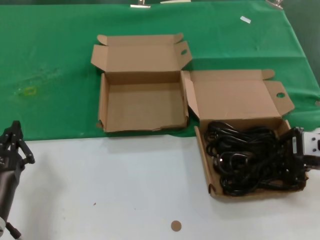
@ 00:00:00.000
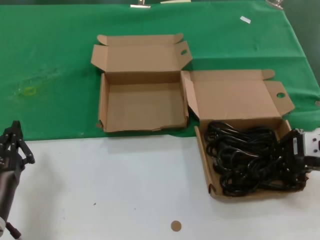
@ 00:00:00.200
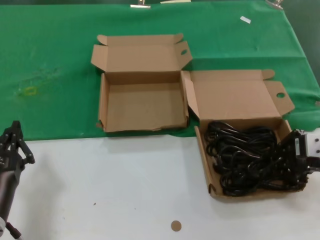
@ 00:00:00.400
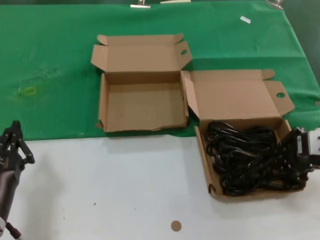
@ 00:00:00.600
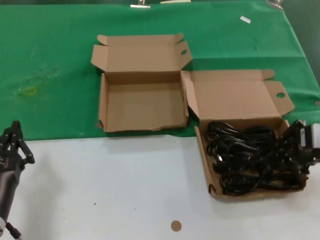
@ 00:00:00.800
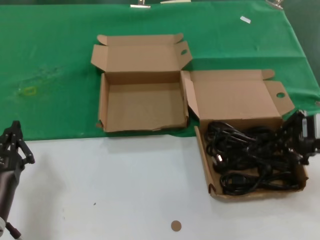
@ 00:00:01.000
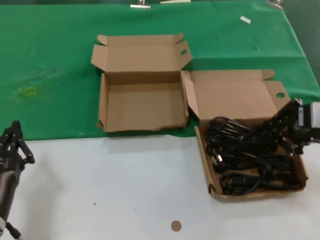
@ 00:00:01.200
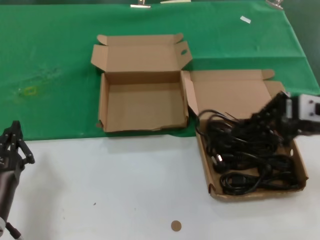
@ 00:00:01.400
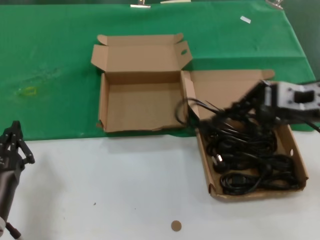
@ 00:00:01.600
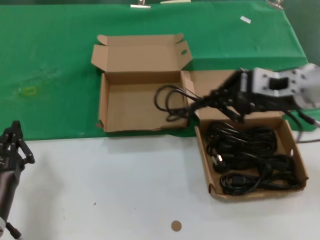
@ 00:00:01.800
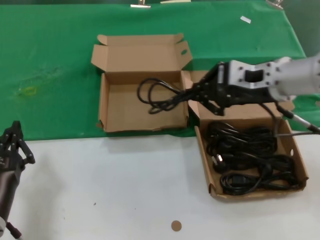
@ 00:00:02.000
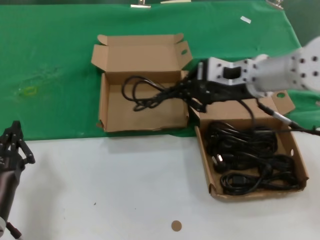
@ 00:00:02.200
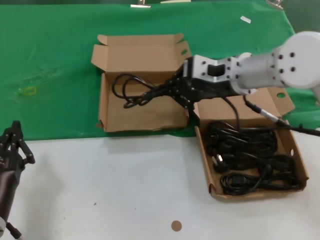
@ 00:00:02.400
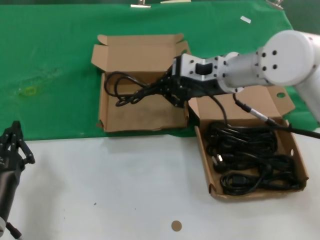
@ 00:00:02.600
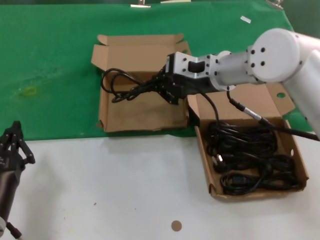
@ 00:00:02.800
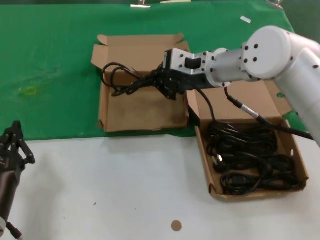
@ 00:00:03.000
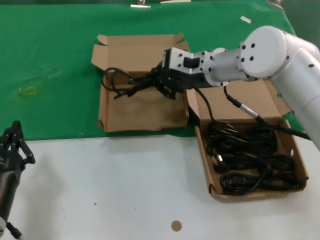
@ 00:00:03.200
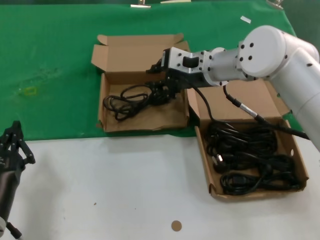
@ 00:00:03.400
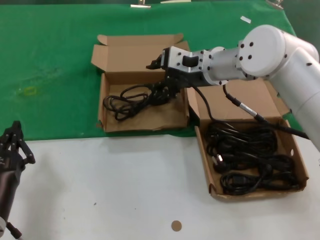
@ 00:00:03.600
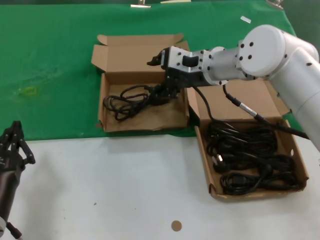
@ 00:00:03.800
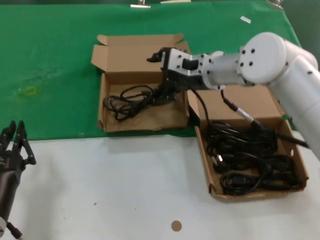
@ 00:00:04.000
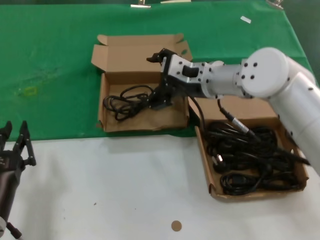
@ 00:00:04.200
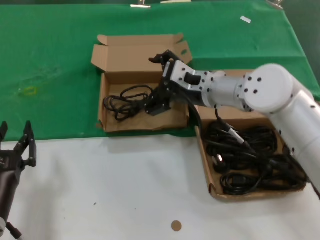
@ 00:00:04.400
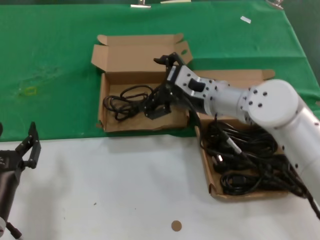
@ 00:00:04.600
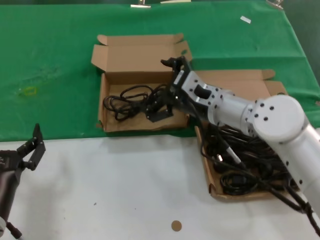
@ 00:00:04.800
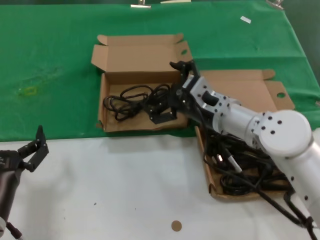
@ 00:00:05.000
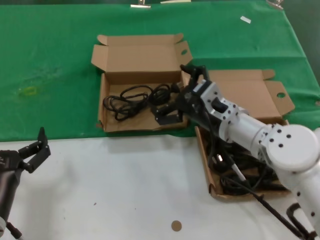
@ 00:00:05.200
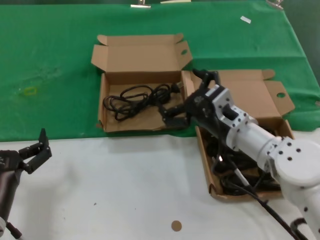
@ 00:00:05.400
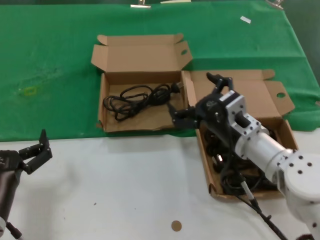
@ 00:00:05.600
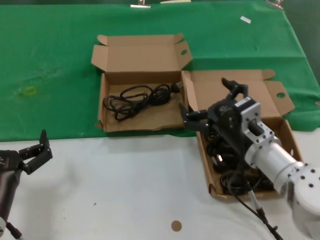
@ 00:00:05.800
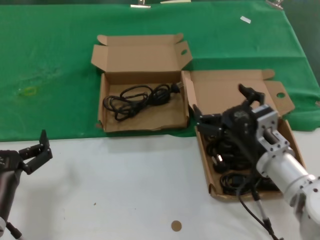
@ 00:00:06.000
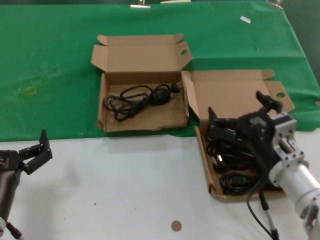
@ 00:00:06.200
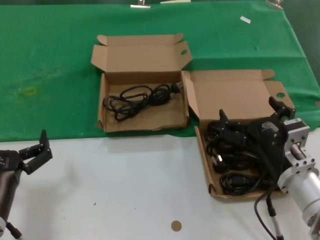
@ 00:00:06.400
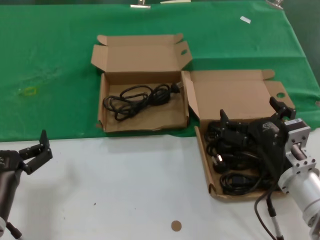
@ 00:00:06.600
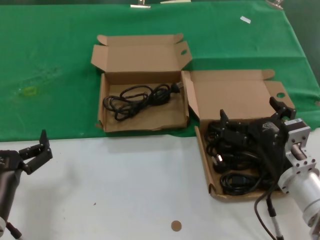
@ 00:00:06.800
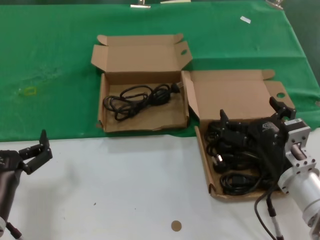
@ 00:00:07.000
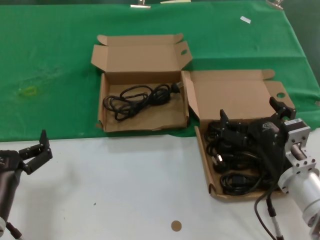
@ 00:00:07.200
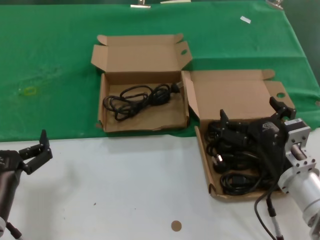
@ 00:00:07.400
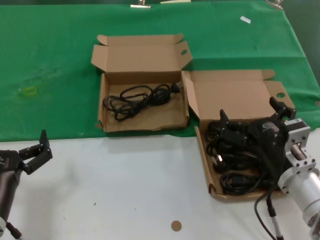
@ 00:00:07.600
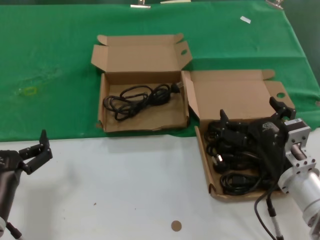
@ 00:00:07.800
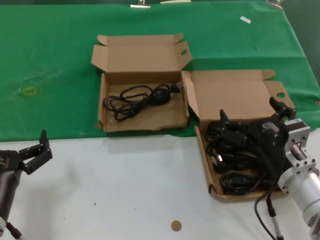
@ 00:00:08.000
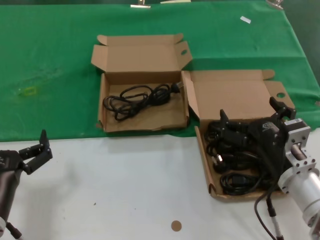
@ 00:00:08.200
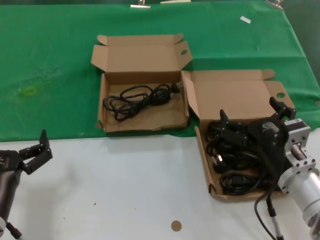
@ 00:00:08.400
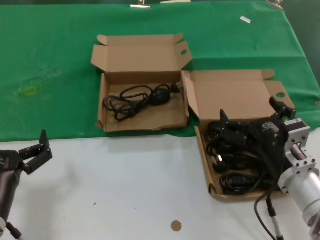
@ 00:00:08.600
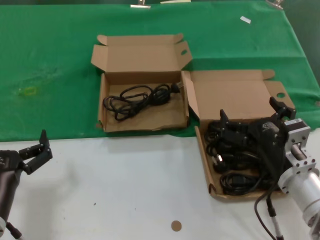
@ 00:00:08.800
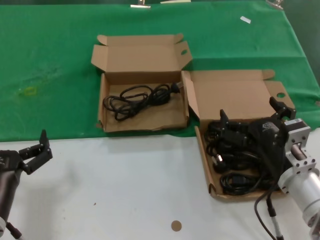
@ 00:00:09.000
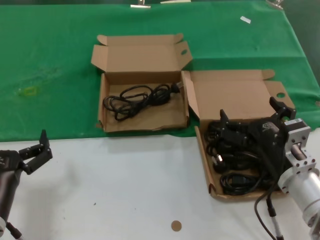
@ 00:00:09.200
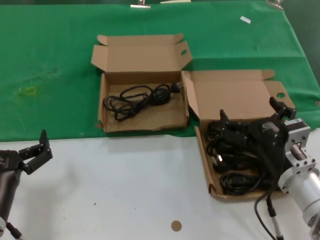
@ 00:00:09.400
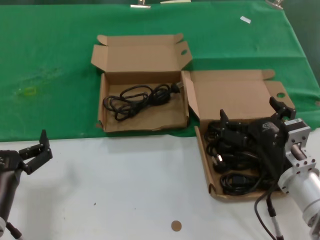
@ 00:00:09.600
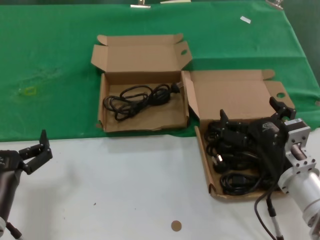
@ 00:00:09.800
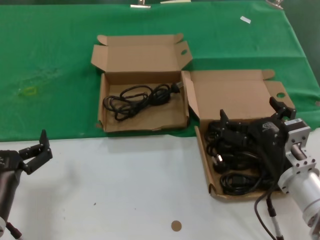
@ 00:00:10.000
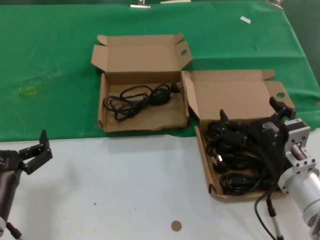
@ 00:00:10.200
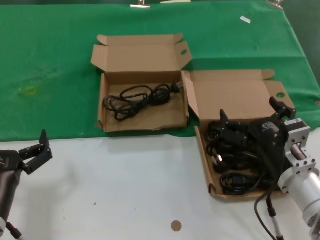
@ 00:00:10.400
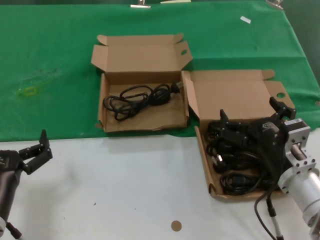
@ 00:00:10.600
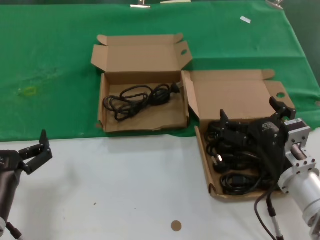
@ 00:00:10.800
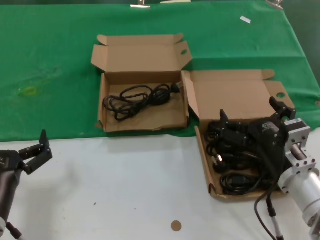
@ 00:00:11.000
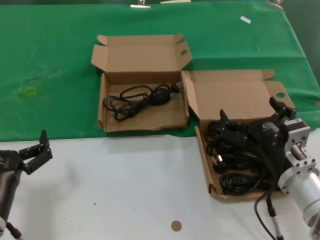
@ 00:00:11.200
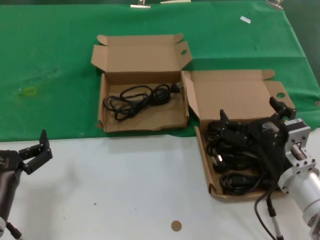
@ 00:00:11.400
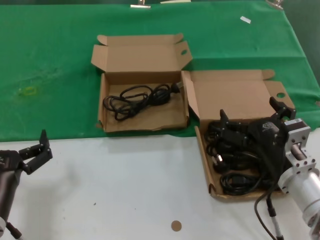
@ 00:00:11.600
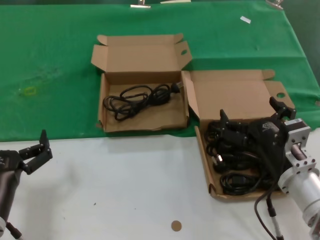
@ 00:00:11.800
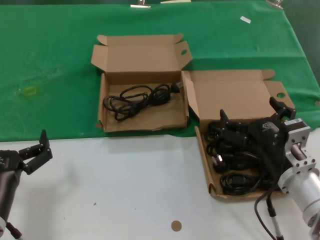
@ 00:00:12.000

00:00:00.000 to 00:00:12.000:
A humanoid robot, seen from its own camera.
Task of the whole recording: take the parts from the box containing them and put them into an empty box.
Step, 00:00:00.400 to 00:00:03.400: Place the data cable in the another box.
00:00:00.000 to 00:00:01.600: The right hand heads upward and to the left, covering some 10 cm.
00:00:01.600 to 00:00:03.000: The right hand goes approximately 20 cm to the left and forward.
00:00:03.000 to 00:00:04.400: The right hand moves downward, some 5 cm.
00:00:04.400 to 00:00:06.000: The right hand heads backward, downward and to the right, covering approximately 20 cm.
00:00:06.000 to 00:00:07.600: The right hand shifts by some 5 cm.
00:00:07.600 to 00:00:12.000: Neither hand changes place.

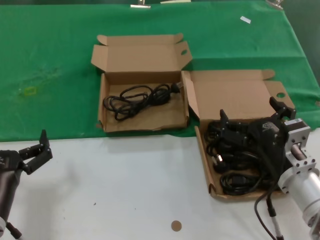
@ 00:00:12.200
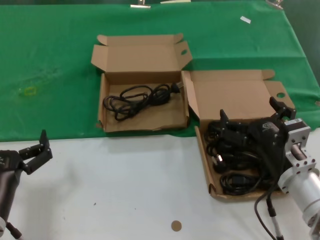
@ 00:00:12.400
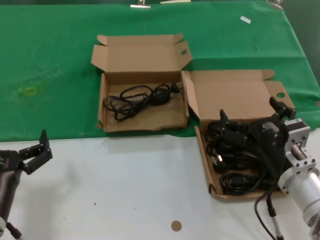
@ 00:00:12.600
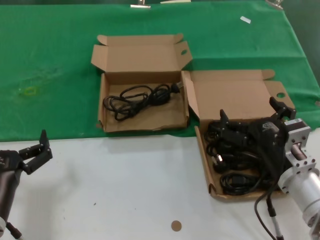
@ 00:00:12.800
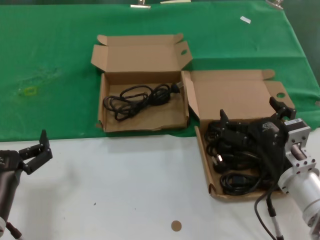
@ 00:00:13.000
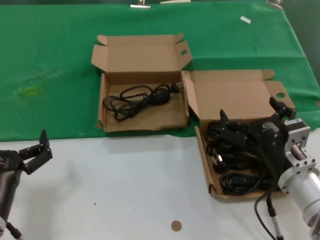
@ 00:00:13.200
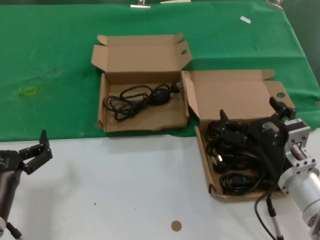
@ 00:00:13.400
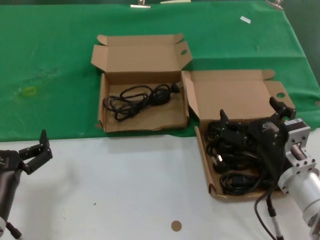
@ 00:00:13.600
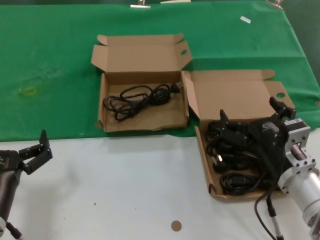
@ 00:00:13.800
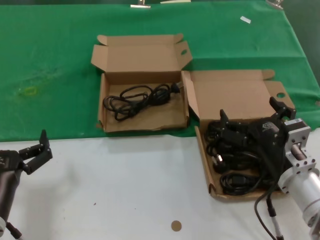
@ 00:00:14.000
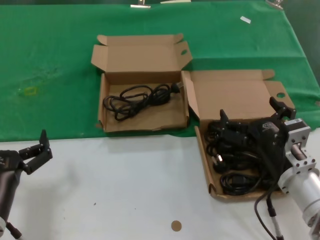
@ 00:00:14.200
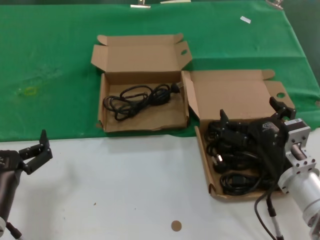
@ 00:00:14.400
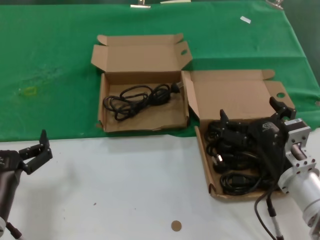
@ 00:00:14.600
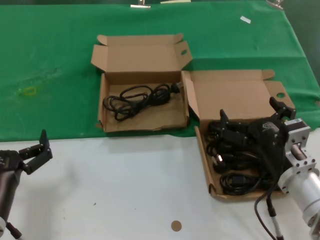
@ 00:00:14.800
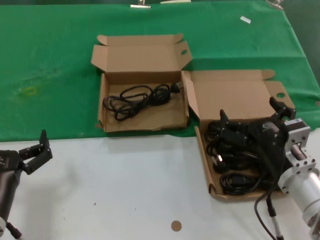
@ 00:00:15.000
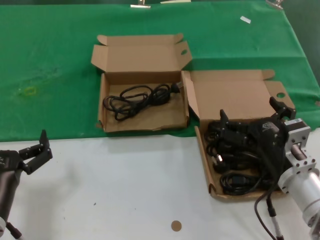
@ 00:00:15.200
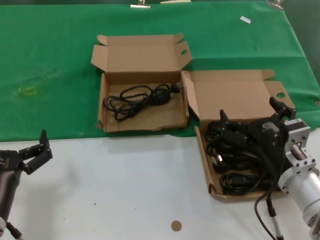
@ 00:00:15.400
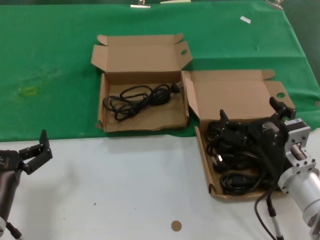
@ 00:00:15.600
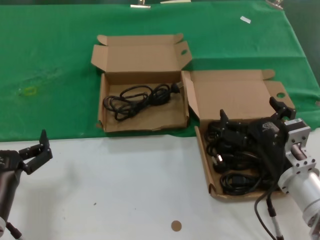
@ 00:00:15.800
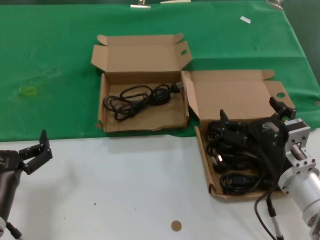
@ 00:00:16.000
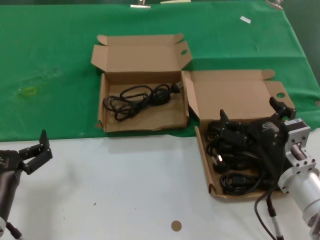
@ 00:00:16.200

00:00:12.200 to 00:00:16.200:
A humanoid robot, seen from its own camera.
Task of the whole recording: take the parts from the box containing them and put them into an empty box.
00:00:12.200 to 00:00:16.200: Both hands stay put.
